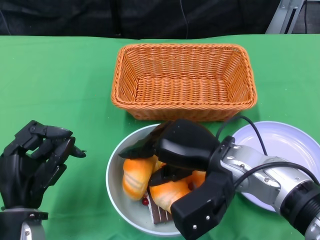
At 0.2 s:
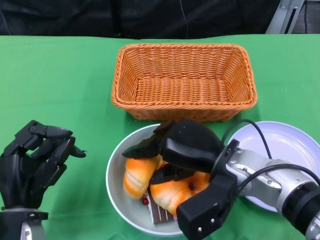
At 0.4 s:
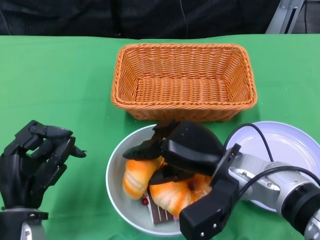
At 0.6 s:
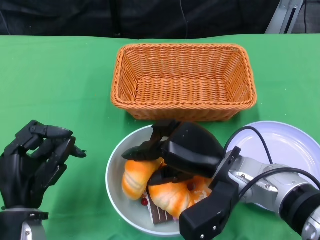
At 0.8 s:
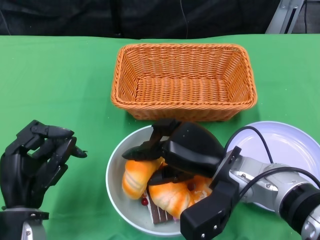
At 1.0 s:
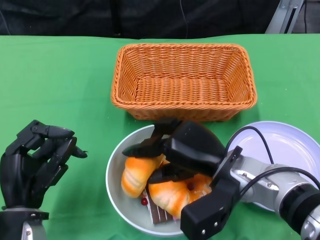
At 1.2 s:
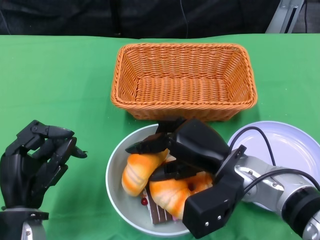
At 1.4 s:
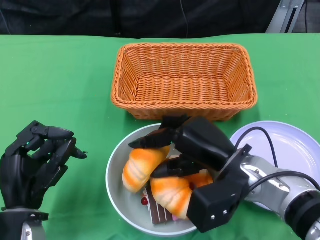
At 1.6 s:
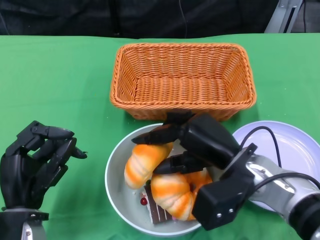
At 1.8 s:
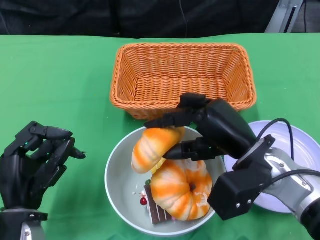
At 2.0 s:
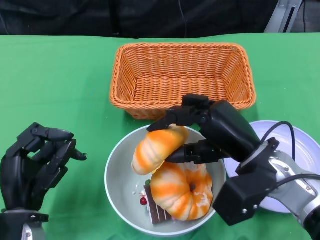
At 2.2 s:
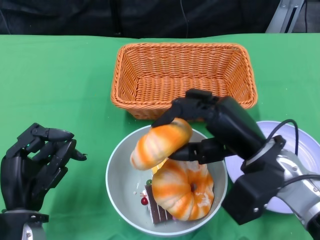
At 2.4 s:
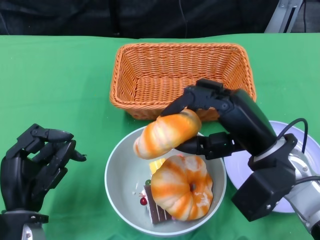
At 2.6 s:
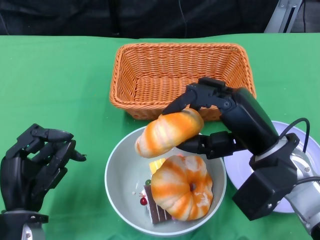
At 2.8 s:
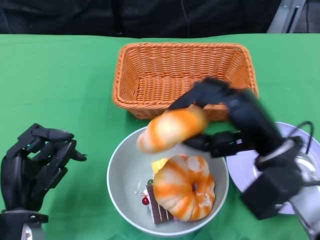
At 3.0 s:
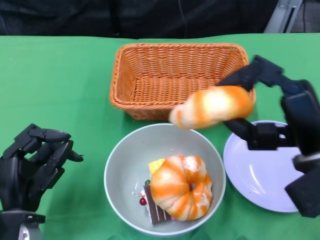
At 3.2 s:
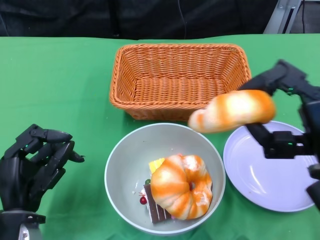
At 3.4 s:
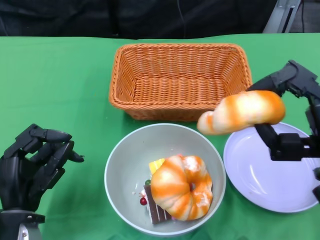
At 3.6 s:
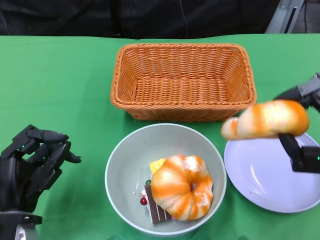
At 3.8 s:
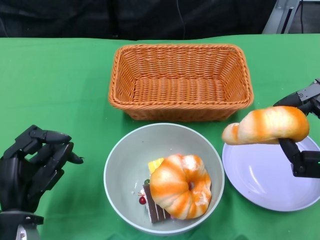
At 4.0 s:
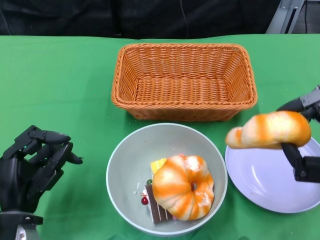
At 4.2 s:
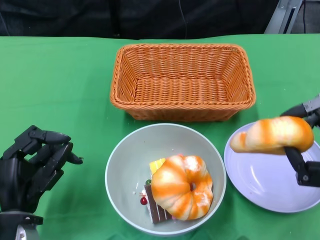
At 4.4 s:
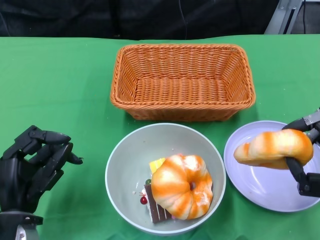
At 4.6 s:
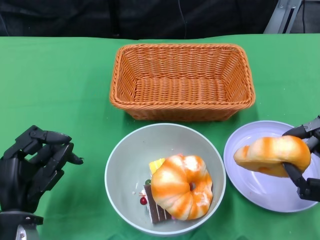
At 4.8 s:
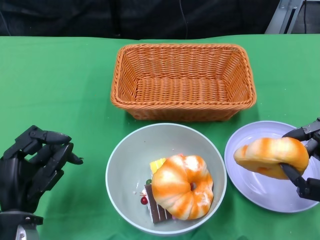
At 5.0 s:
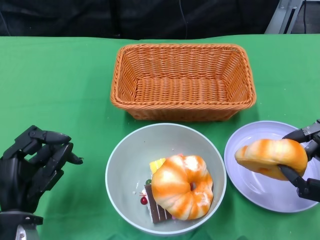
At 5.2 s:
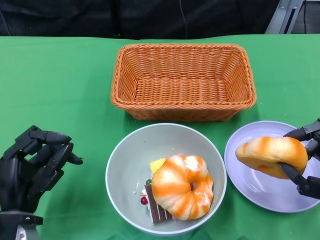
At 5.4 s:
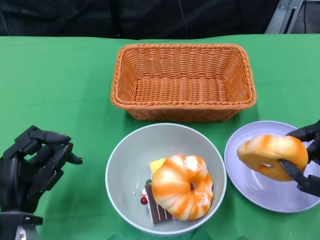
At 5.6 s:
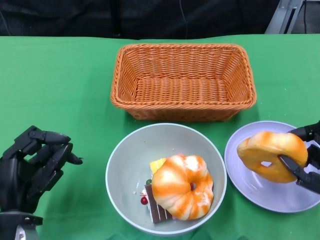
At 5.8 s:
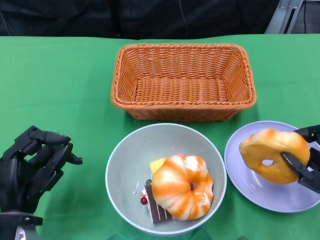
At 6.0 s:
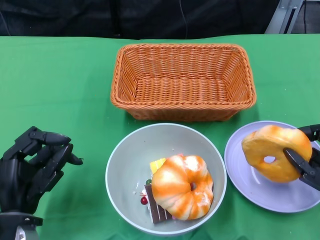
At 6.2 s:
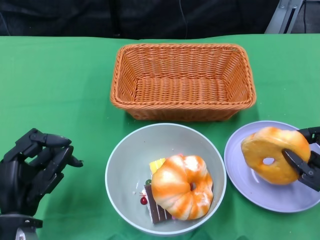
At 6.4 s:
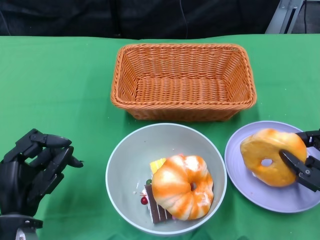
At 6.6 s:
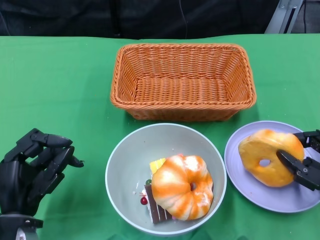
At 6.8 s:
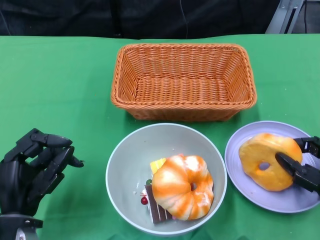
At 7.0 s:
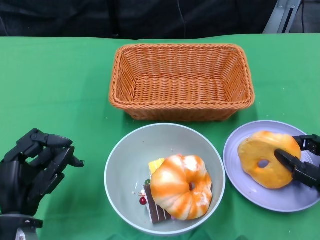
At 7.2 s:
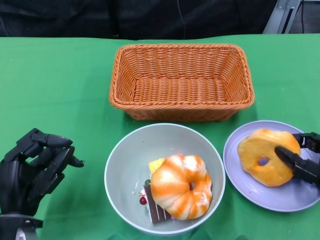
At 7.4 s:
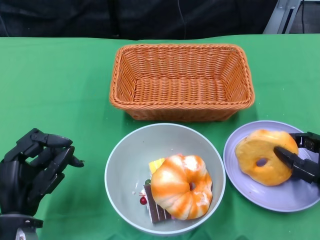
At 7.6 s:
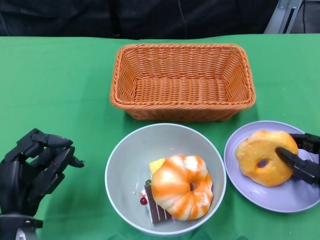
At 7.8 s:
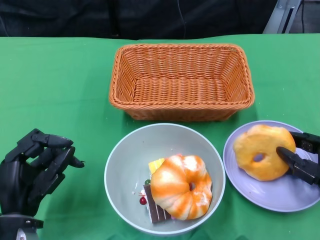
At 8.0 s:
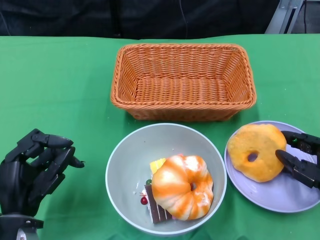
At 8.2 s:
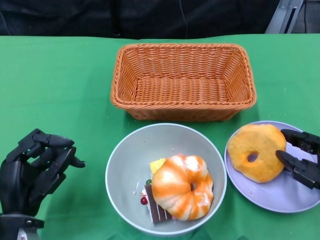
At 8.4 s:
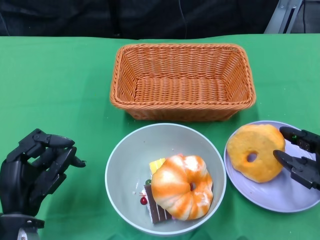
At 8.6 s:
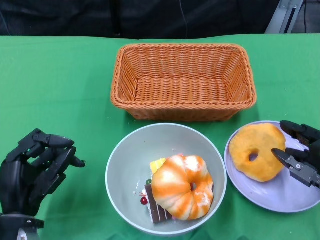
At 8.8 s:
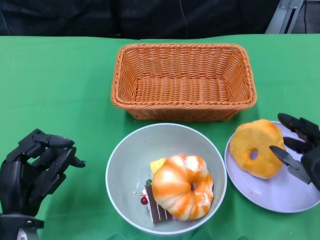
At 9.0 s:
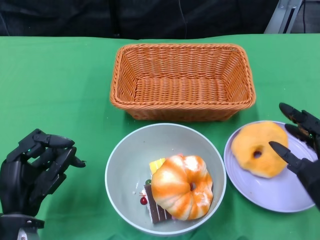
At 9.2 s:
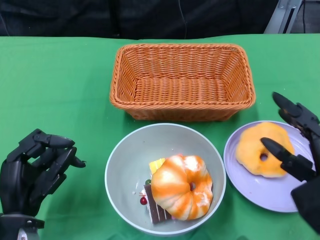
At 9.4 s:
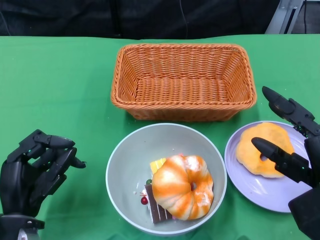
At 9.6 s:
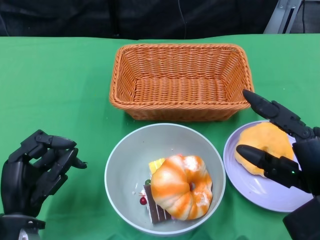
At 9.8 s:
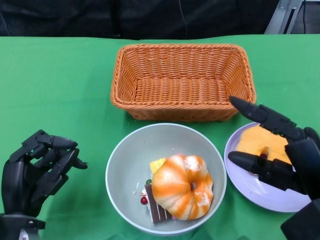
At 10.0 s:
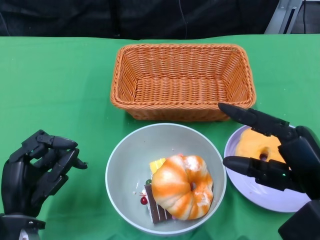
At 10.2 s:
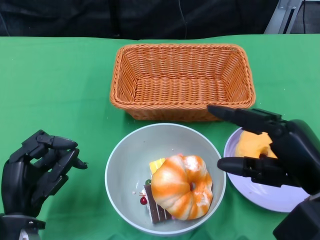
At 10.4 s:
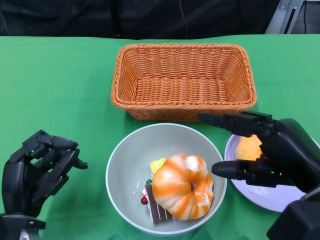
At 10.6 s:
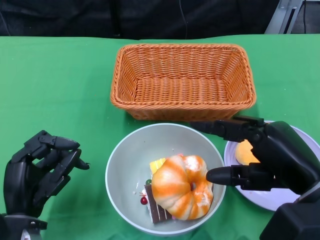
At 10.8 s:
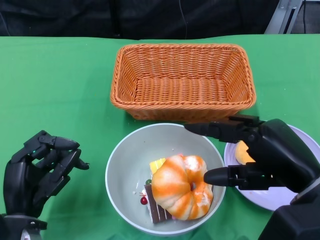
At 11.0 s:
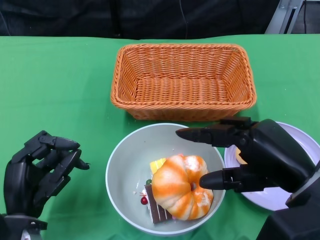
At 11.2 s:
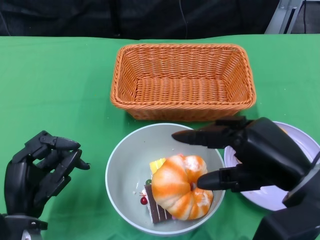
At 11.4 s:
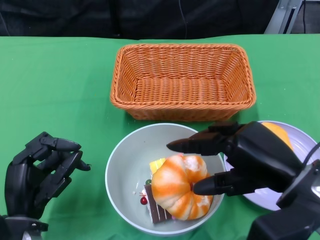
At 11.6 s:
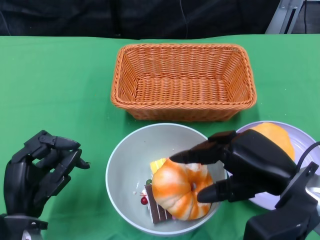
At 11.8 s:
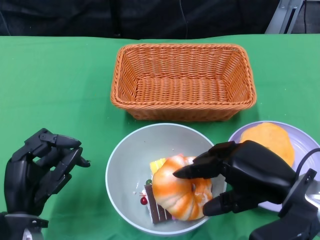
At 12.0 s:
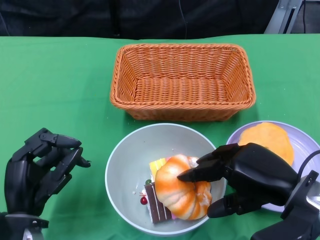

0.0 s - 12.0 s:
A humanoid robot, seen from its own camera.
1.6 s - 3.0 s: The right hand moves to the right and upward, some 10 cm.
3.0 s - 4.4 s: The right hand travels downward and to the right by some 10 cm.
9.0 s - 10.4 s: The right hand goes roughly 5 cm upward.

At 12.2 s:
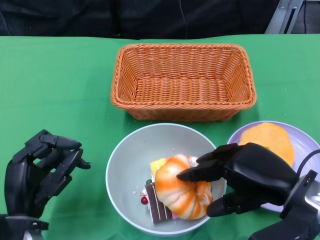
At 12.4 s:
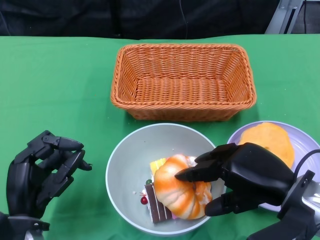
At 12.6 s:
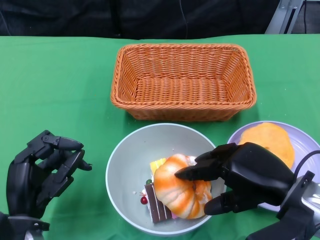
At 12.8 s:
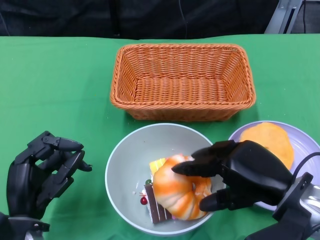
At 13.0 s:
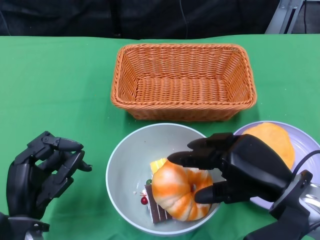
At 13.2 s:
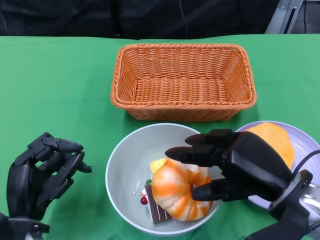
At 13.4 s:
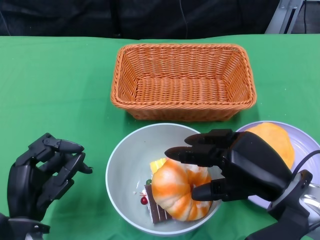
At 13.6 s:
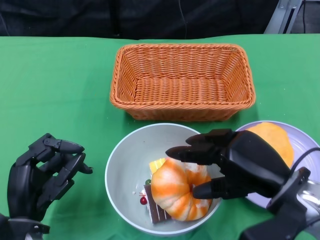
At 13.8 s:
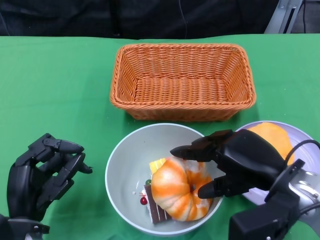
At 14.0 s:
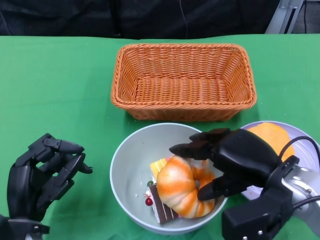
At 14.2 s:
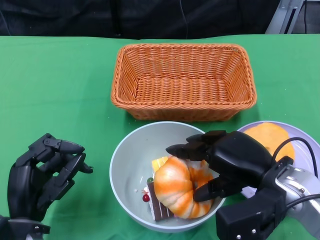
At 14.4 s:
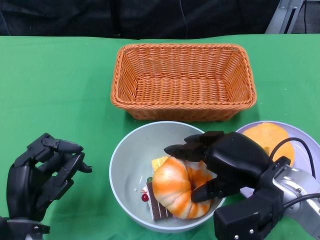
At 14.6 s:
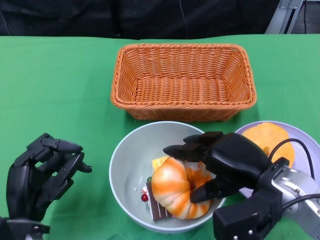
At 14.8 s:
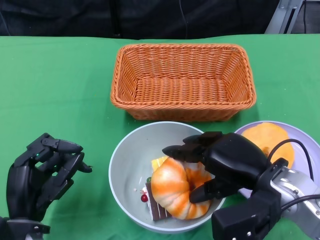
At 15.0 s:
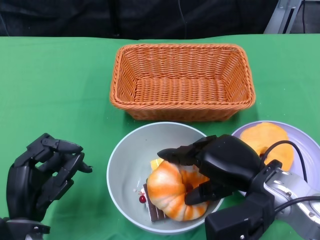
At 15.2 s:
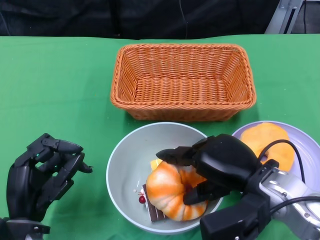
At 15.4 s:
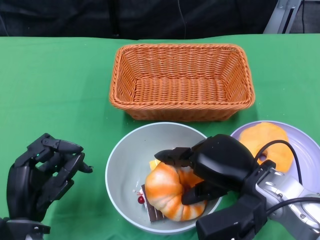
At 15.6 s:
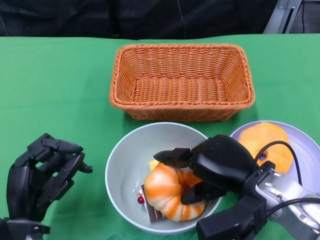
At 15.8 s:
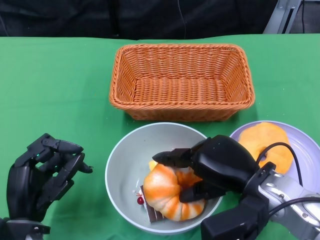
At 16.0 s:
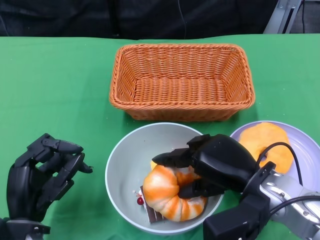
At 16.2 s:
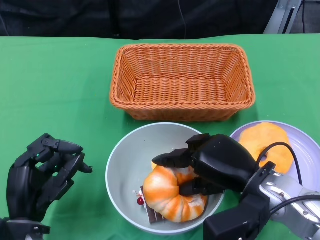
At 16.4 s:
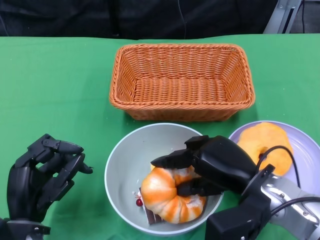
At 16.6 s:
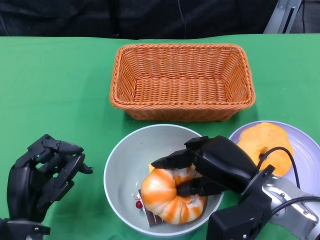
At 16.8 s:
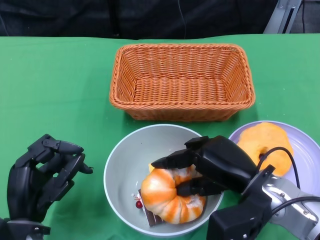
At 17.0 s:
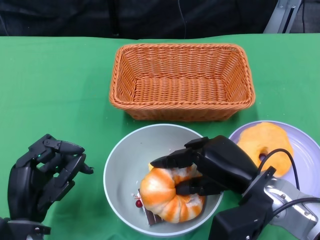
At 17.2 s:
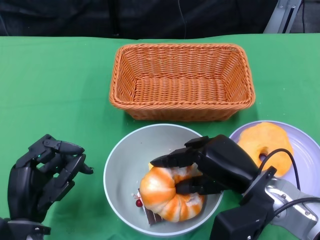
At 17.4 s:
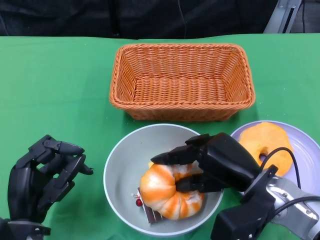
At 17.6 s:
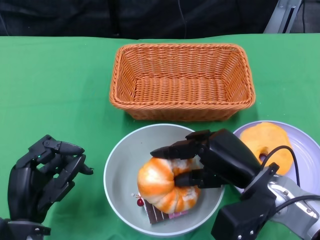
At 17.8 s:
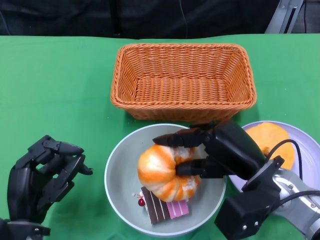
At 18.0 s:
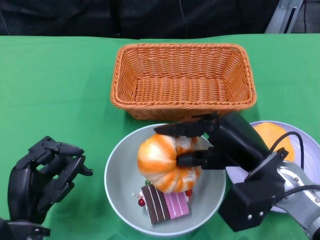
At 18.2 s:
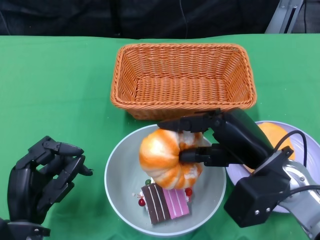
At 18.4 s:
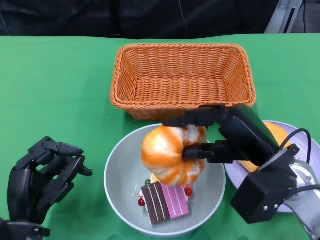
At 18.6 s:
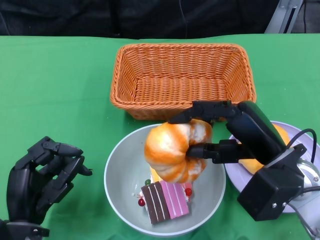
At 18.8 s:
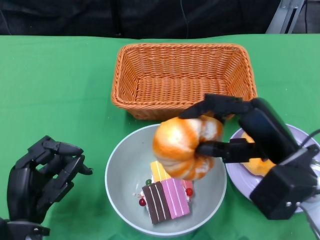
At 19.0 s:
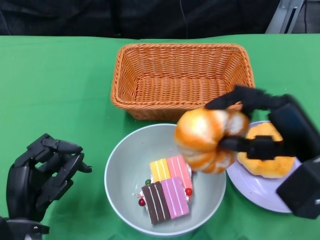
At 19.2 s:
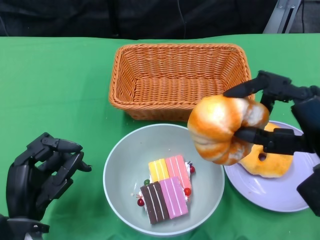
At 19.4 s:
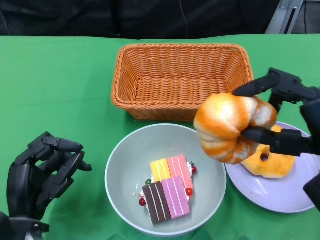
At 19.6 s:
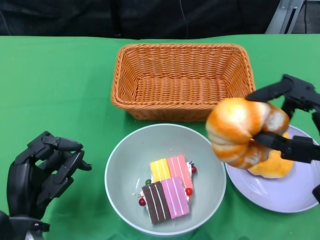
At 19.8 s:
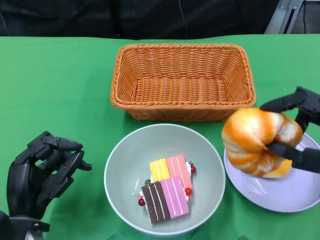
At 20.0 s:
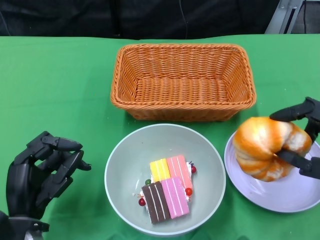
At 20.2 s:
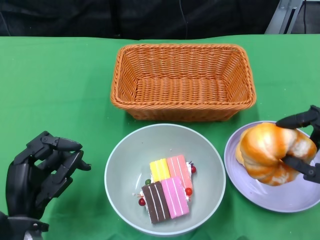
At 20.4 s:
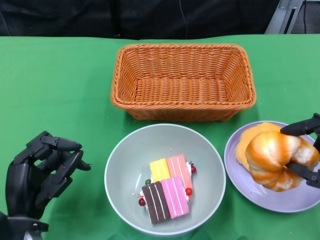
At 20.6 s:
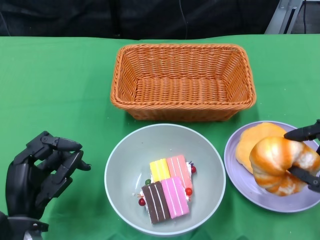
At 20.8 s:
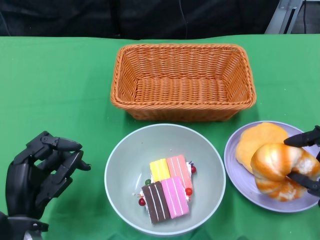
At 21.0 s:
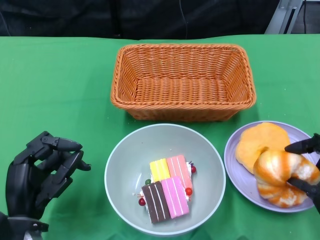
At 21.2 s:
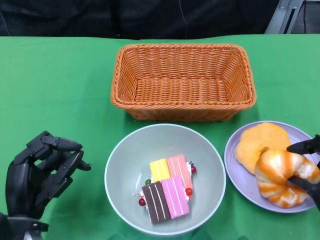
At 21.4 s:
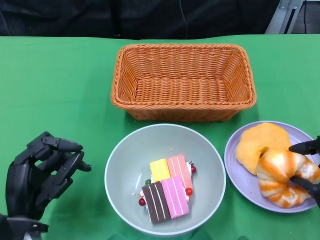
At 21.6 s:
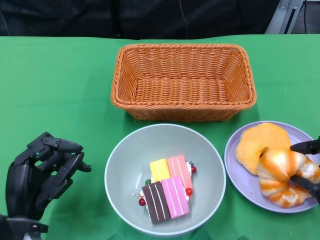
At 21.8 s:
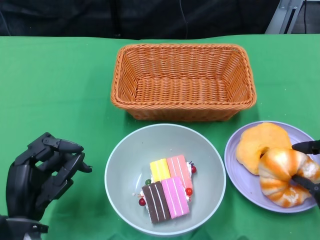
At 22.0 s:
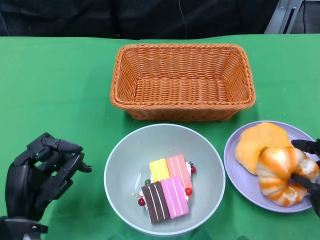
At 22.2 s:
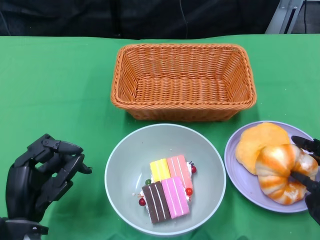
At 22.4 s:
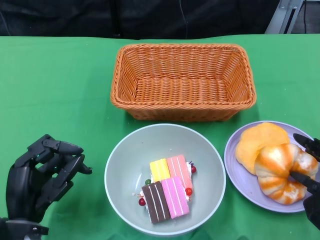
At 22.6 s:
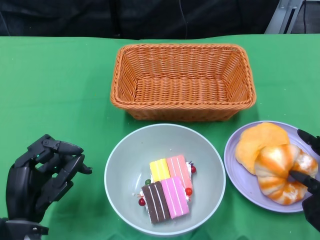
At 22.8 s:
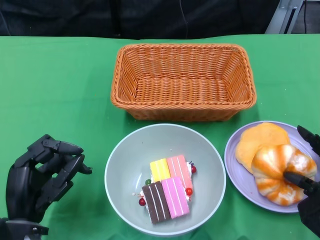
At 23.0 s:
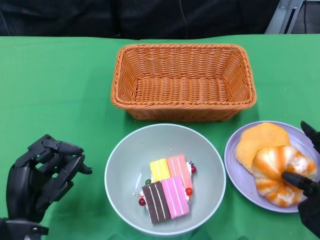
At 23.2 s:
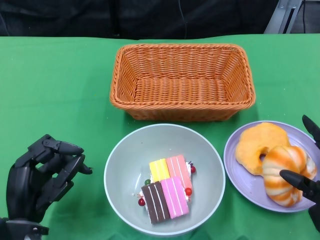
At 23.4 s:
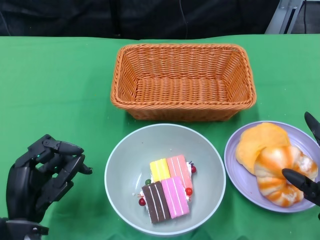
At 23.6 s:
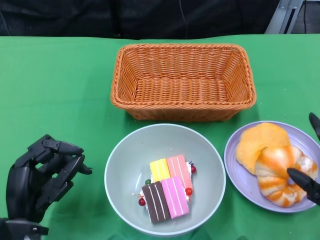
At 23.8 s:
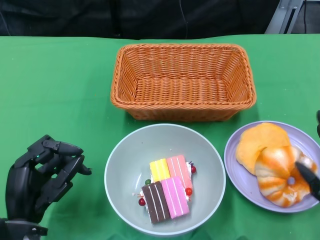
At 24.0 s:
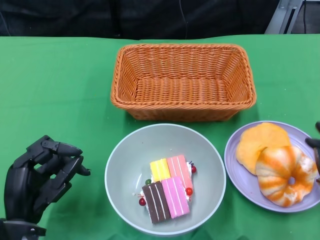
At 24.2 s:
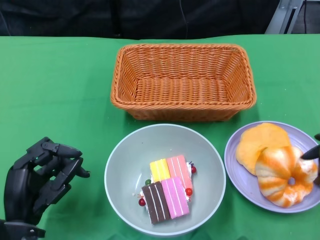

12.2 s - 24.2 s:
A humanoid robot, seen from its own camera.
12.2 s - 15.2 s: The hands move only a little.
15.2 s - 16.6 s: The hands move only a little.
18.2 s - 19.8 s: The right hand is displaced to the right and backward by some 10 cm.
19.8 s - 21.2 s: The right hand moves downward, about 10 cm.
21.2 s - 22.6 s: There are only small adjustments of the hands.
